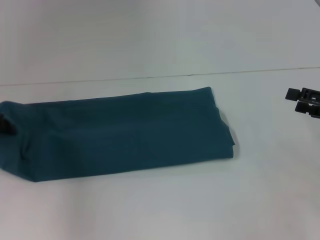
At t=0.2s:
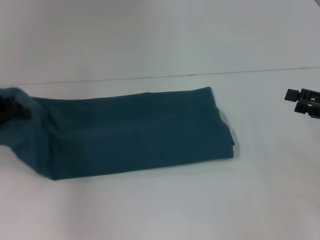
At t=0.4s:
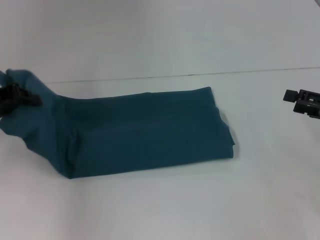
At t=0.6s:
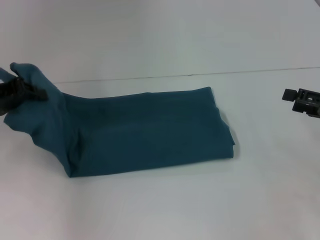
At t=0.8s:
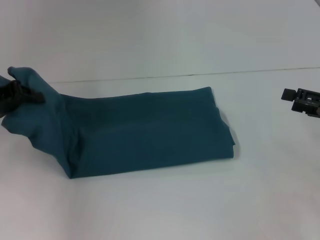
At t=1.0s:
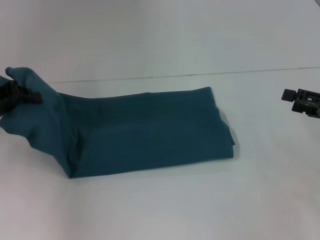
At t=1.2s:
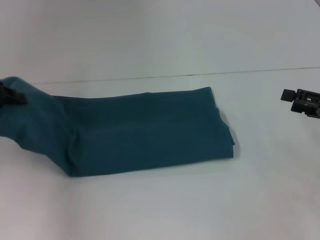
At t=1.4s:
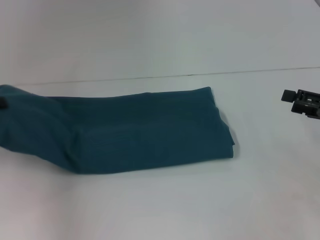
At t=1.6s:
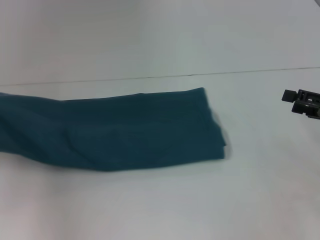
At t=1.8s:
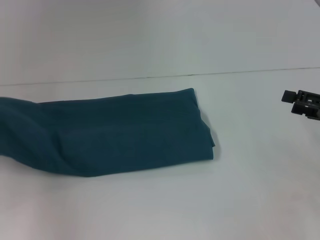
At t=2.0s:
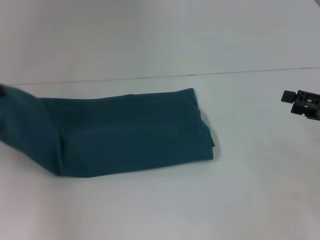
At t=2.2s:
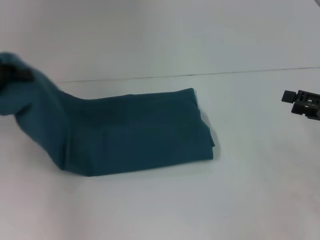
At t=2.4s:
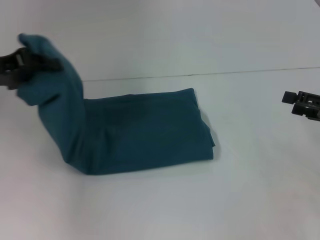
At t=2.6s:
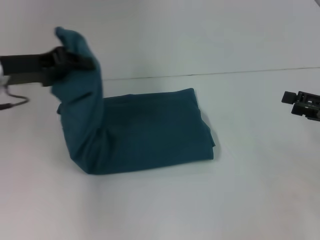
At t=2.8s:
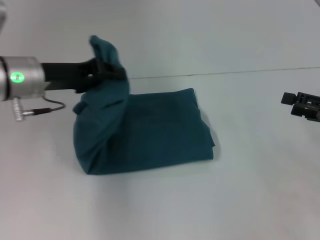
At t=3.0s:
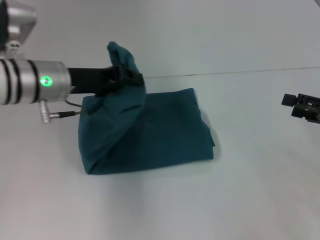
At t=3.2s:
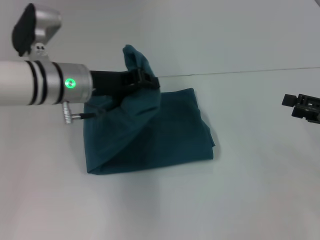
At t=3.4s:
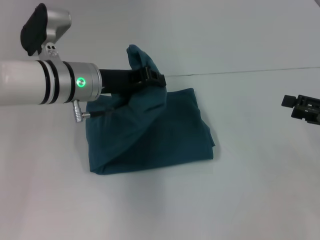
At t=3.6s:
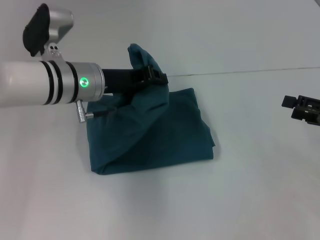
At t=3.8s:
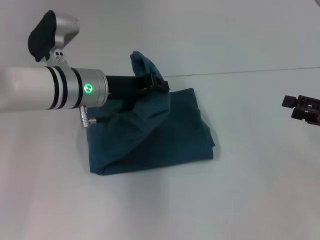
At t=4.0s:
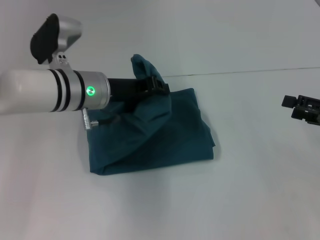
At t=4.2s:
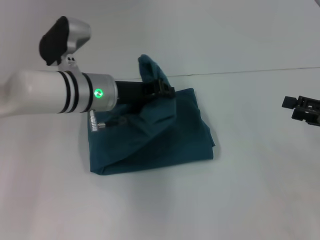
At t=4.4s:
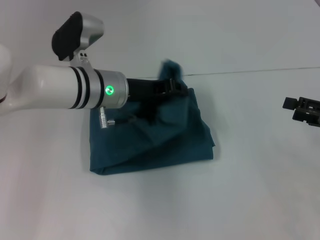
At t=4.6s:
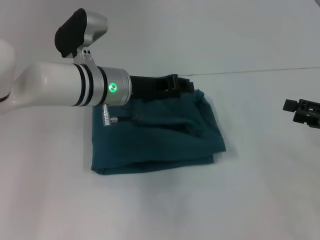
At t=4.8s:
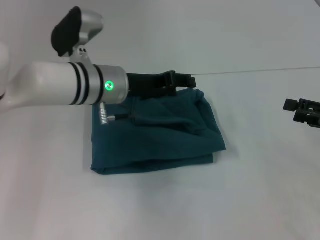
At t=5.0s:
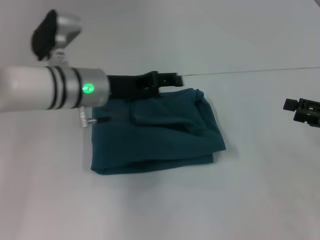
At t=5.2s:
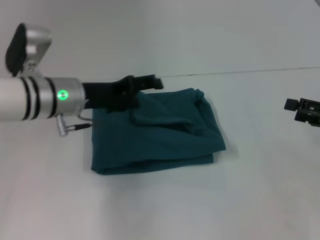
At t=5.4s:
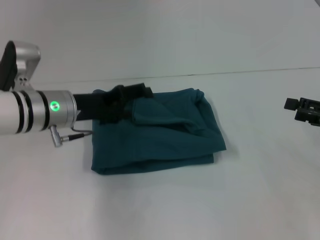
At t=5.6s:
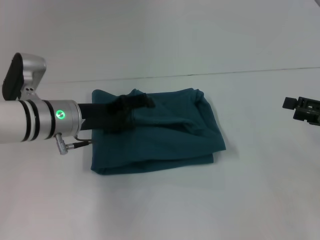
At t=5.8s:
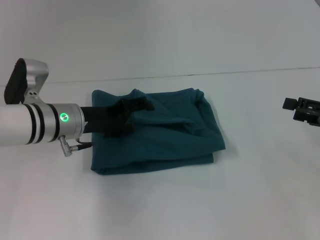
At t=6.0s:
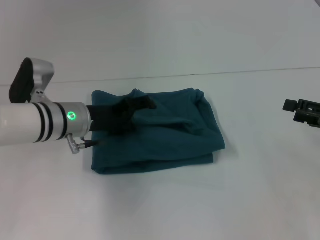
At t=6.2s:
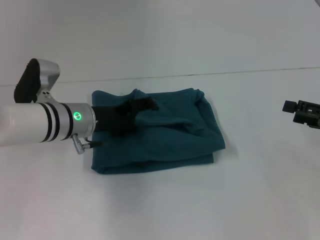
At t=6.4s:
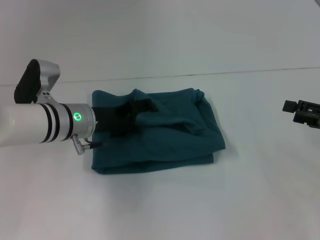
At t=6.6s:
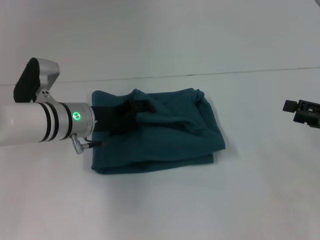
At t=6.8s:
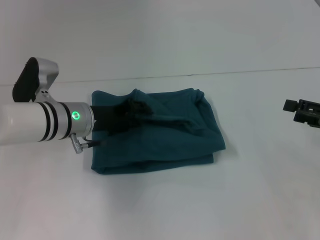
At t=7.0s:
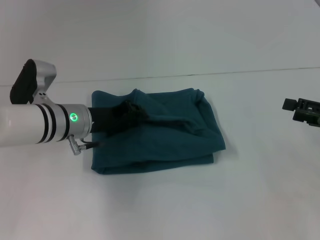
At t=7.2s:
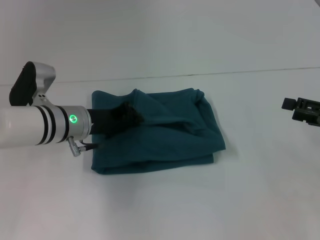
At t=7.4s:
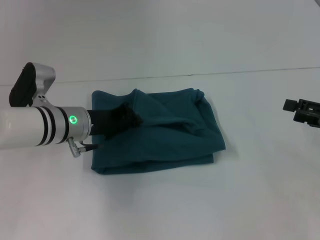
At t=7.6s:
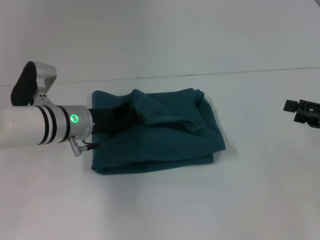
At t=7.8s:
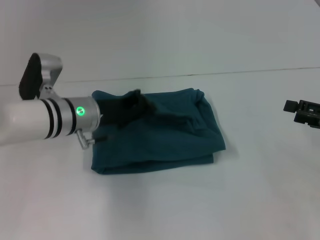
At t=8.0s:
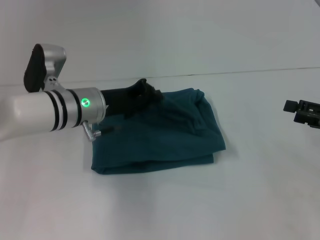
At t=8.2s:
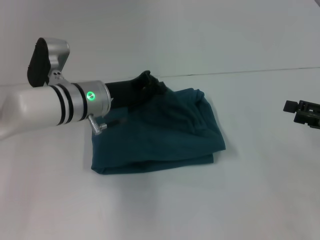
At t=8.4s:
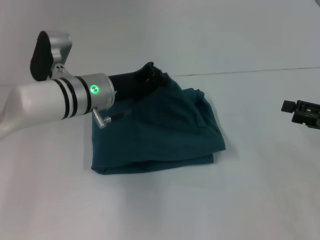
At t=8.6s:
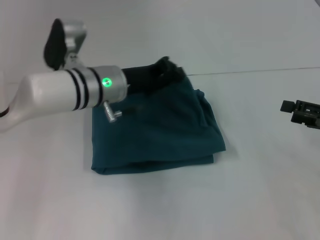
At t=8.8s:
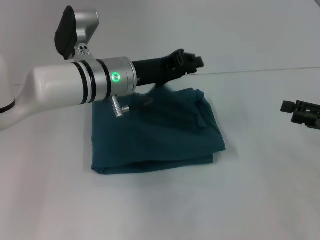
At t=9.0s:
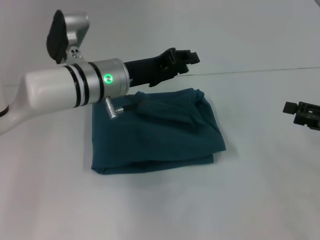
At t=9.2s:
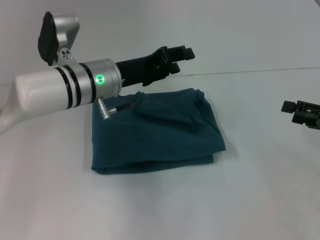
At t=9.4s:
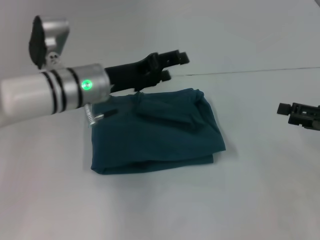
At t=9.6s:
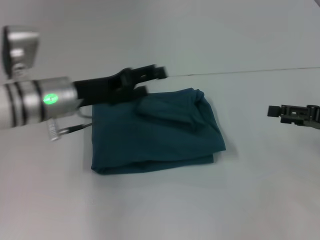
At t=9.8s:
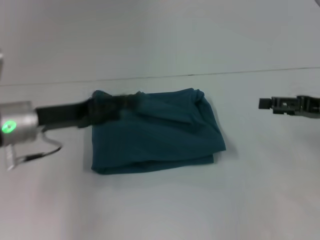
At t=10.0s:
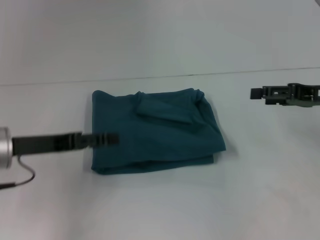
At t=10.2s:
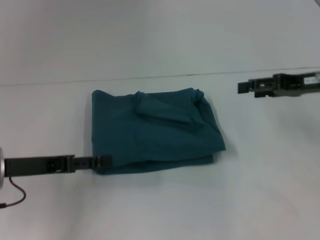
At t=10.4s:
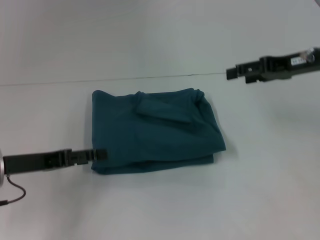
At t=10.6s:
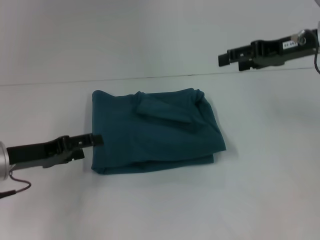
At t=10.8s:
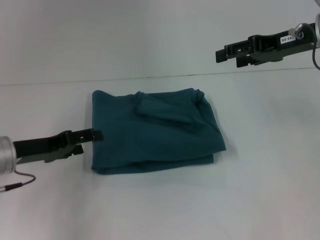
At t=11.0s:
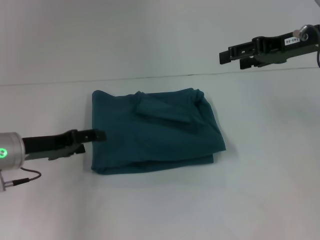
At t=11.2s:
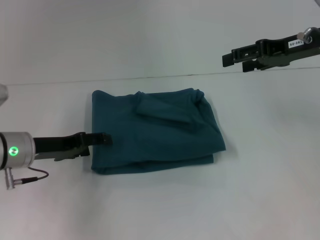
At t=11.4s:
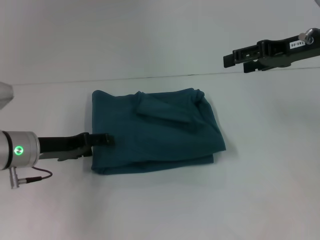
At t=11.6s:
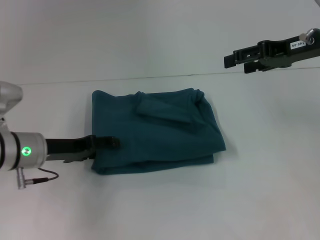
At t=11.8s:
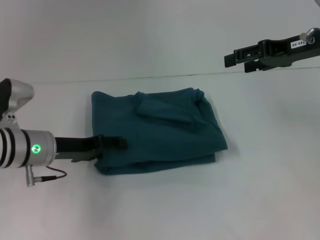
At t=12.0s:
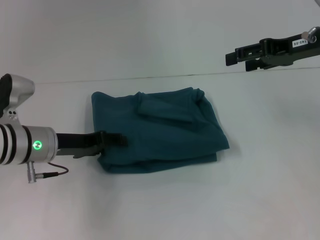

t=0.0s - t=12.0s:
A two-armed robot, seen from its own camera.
Step, t=0.0s - t=4.4s: Fold the clothes to the left.
t=0.0s - t=1.6s: The left gripper moves roughly 5 cm.
t=1.6s - t=3.0s: The left gripper shifts approximately 20 cm to the right.
t=3.0s - t=4.4s: The left gripper goes roughly 10 cm to the right.
t=4.4s - t=6.0s: The left gripper moves to the left, approximately 5 cm, and opens up.
t=6.0s - t=7.6s: The left gripper closes.
t=7.6s - t=9.0s: The left gripper goes some 10 cm to the right and upward.
t=9.0s - t=10.4s: The right gripper heads forward, upward and to the left, covering some 15 cm; the left gripper moves to the left and backward, approximately 20 cm, and opens.
t=10.4s - t=12.0s: The left gripper moves forward and to the right, roughly 10 cm.

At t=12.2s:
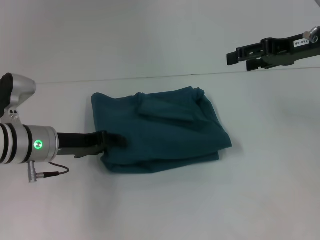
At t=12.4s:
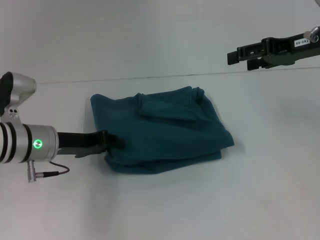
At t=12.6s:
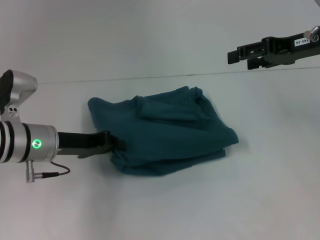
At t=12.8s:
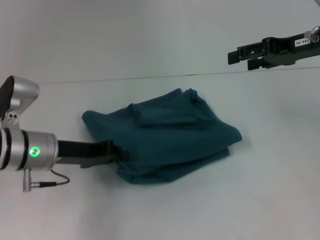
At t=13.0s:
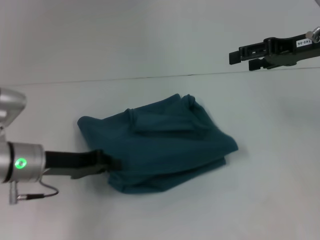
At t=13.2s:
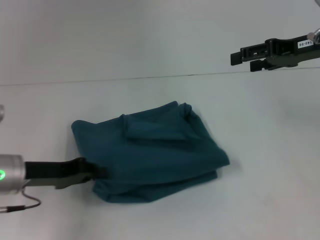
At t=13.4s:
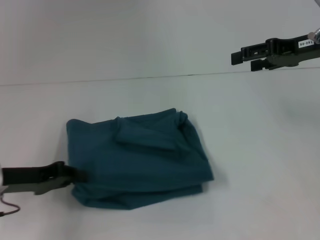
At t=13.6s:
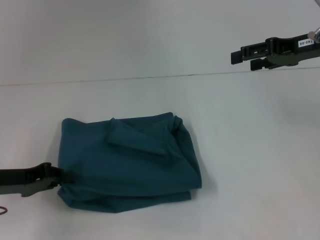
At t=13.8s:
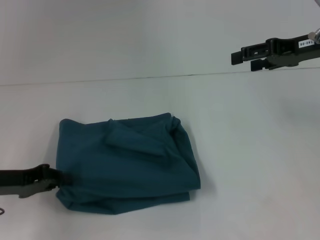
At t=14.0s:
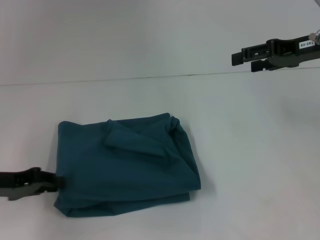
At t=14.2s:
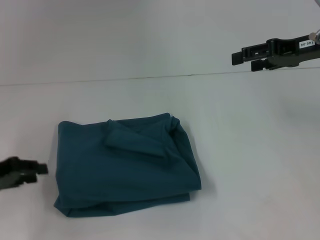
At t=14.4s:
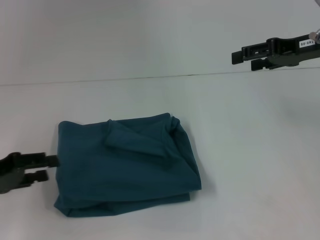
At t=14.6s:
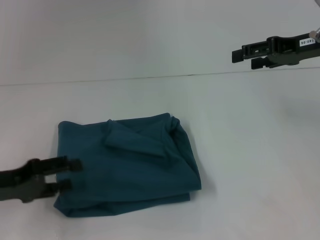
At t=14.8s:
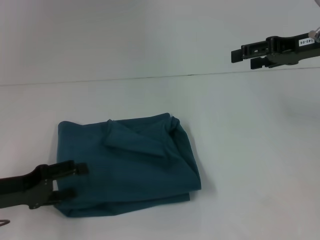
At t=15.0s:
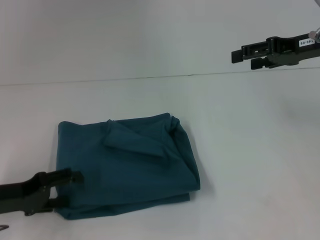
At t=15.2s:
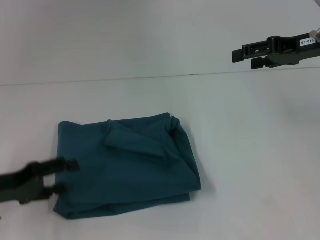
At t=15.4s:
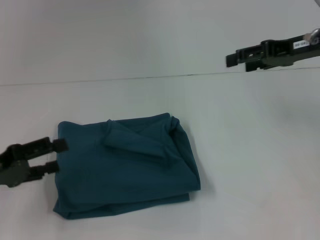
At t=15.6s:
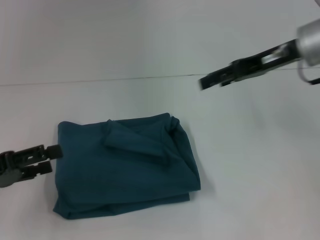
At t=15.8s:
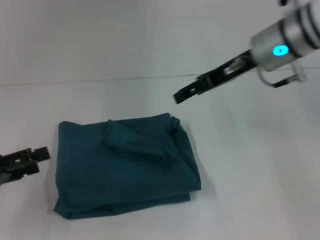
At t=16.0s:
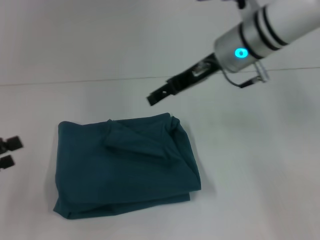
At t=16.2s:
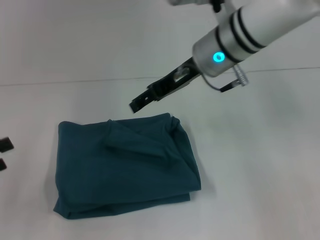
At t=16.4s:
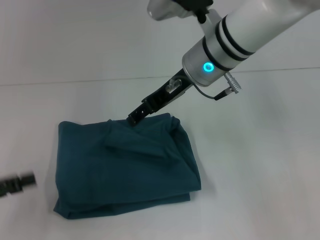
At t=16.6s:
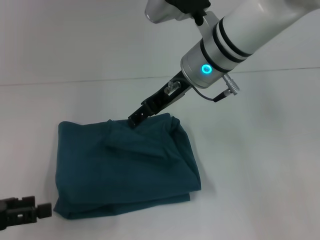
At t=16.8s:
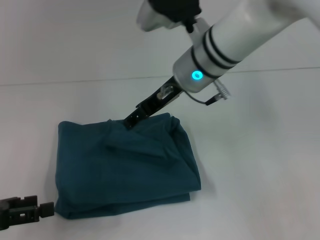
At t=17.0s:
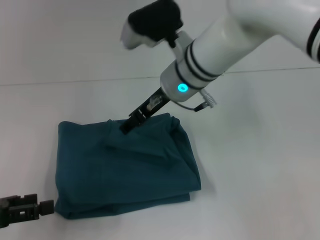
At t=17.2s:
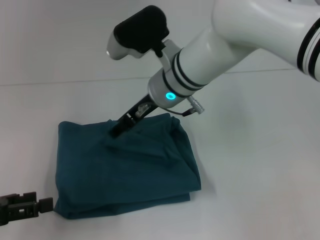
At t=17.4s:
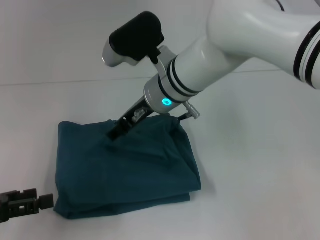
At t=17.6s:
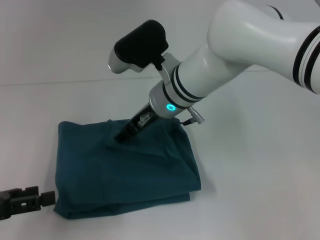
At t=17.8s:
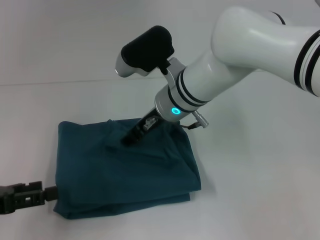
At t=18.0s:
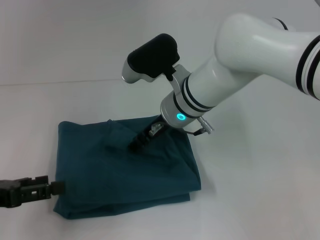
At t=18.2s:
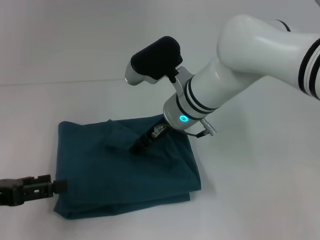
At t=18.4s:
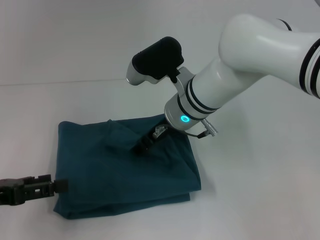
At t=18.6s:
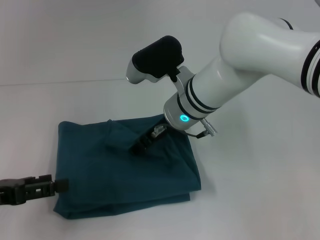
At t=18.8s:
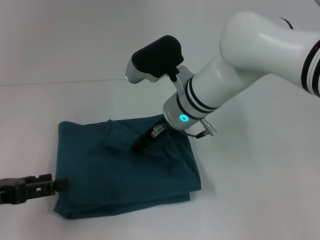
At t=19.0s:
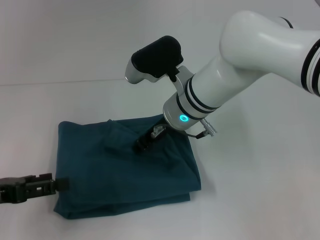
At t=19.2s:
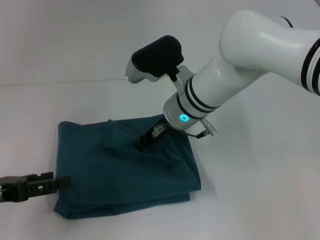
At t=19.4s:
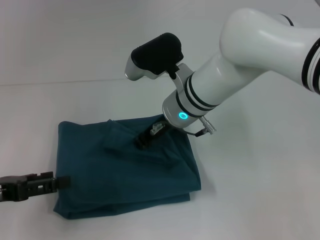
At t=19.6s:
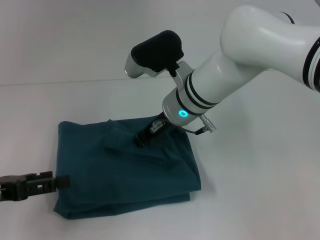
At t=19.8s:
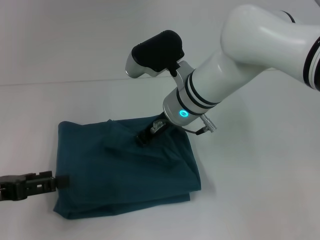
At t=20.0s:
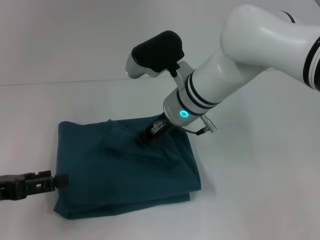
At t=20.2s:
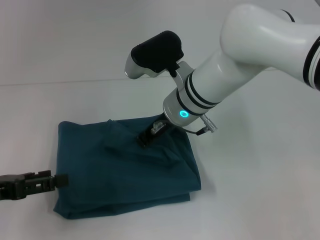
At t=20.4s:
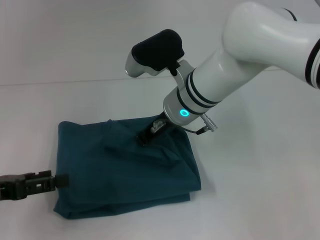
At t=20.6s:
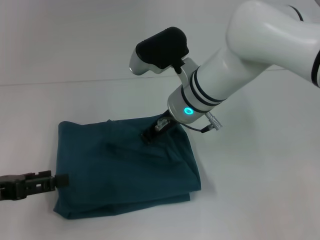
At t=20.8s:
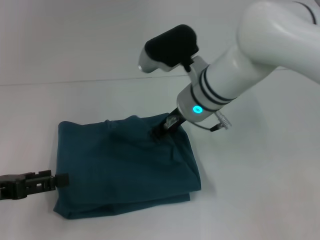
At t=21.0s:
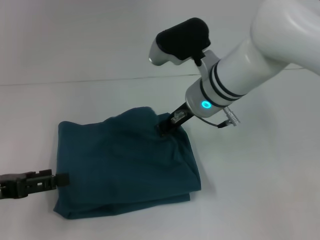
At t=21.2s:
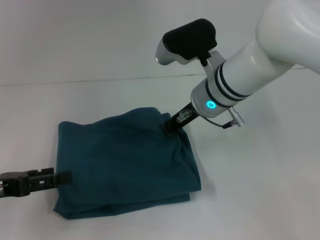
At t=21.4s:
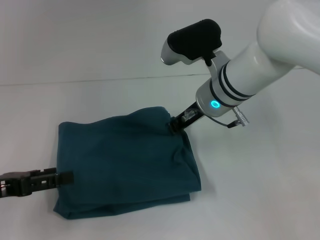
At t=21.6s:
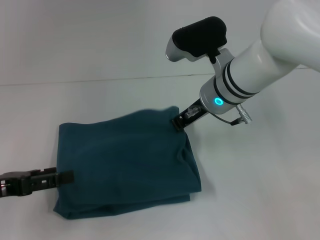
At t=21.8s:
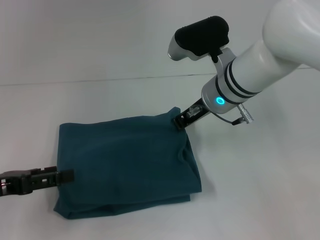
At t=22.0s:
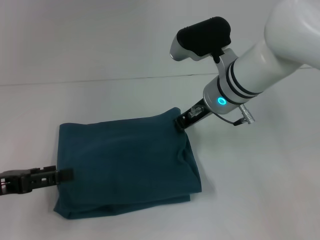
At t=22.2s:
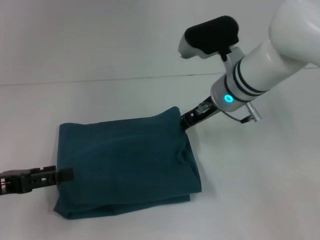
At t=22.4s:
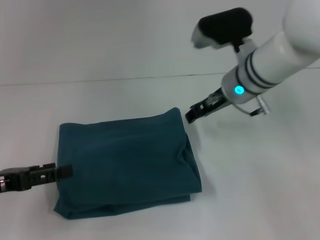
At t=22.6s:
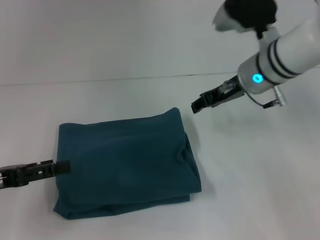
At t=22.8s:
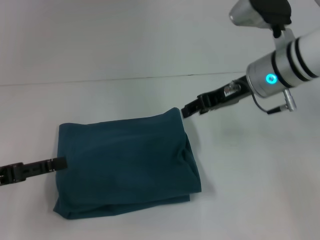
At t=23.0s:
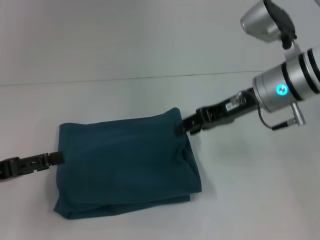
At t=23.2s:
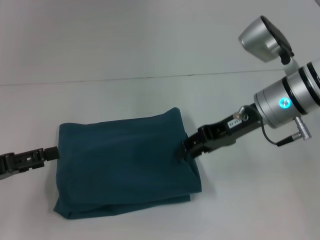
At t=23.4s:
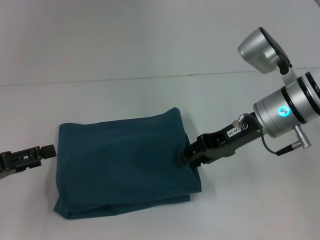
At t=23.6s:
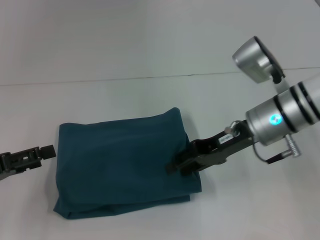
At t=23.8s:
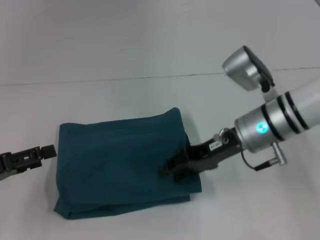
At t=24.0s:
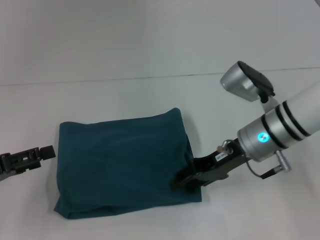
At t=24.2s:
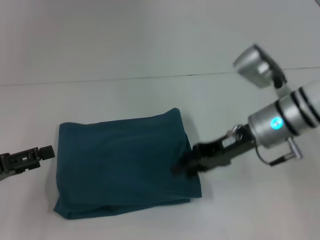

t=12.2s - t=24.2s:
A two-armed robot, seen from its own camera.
t=12.2s - t=13.8s: The left gripper heads to the left and backward, covering some 10 cm, and closes.
t=13.8s - t=15.2s: The left gripper opens.
t=15.2s - t=16.6s: The right gripper goes some 20 cm to the left. Meanwhile the left gripper moves backward, approximately 5 cm.
t=16.6s - t=18.2s: The right gripper shifts some 10 cm downward.
t=18.2s - t=19.8s: The right gripper closes its fingers.
t=19.8s - t=21.2s: The grippers make only small movements.
t=21.2s - t=22.6s: The right gripper heads to the right, covering roughly 5 cm, and opens.
t=22.6s - t=24.2s: The right gripper travels backward by some 5 cm.
